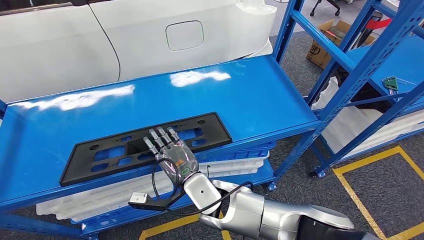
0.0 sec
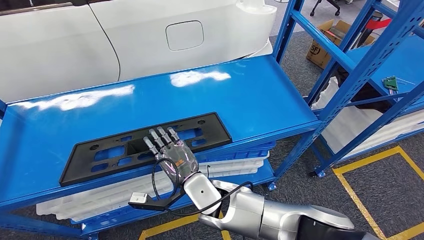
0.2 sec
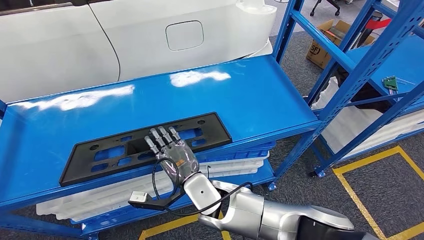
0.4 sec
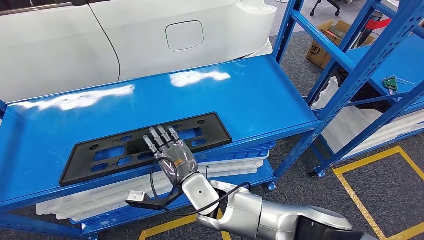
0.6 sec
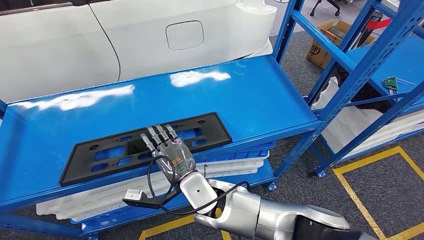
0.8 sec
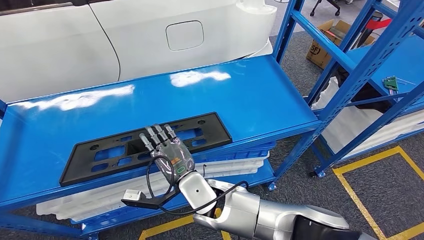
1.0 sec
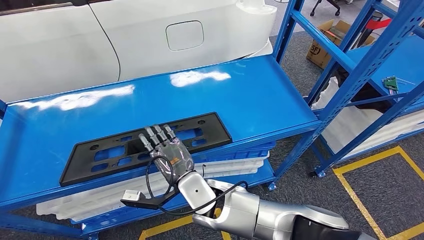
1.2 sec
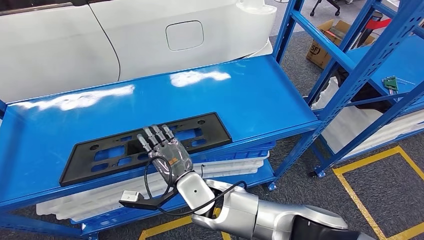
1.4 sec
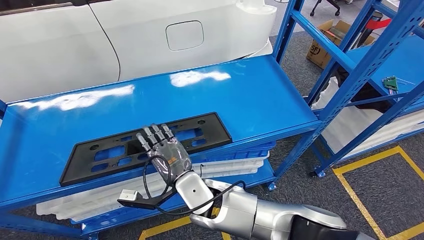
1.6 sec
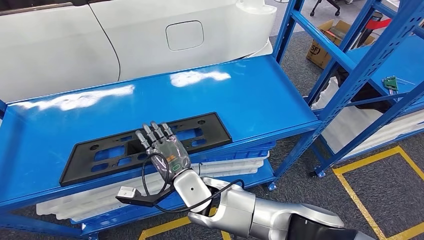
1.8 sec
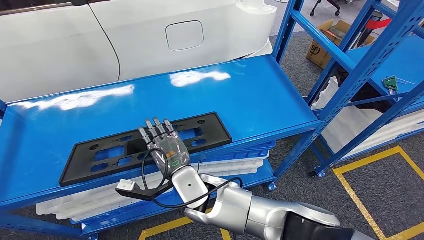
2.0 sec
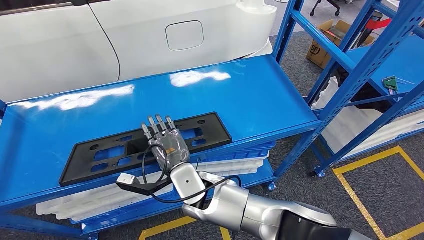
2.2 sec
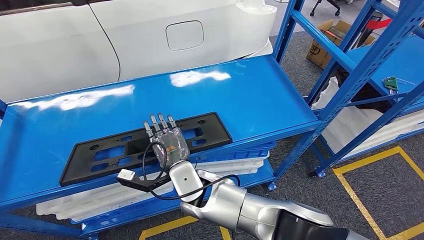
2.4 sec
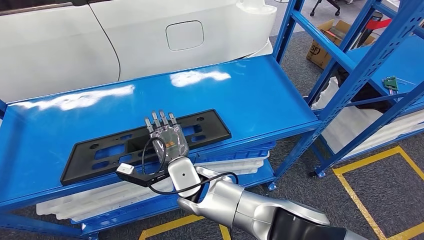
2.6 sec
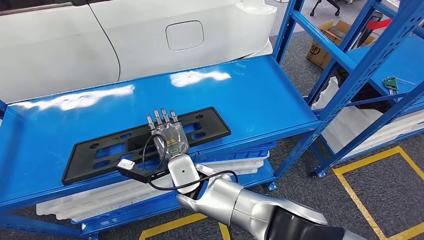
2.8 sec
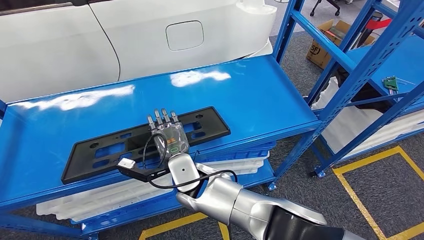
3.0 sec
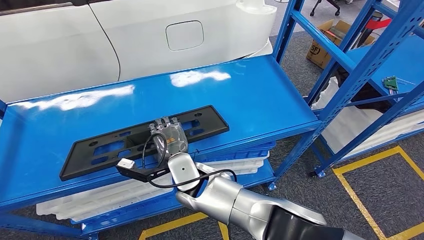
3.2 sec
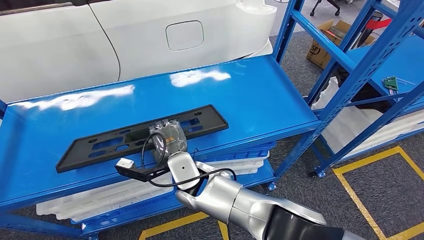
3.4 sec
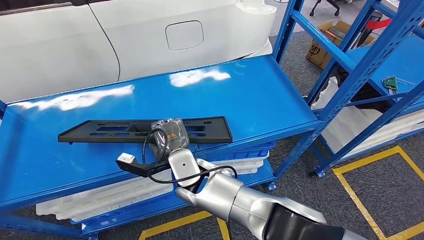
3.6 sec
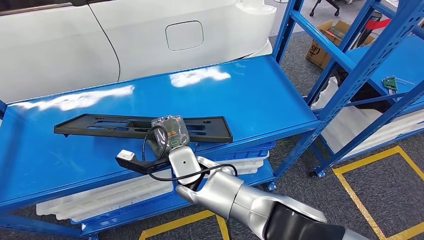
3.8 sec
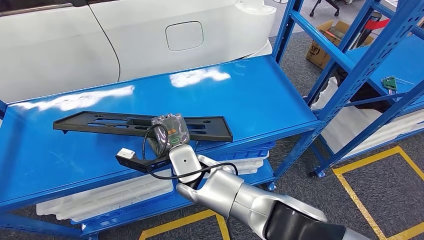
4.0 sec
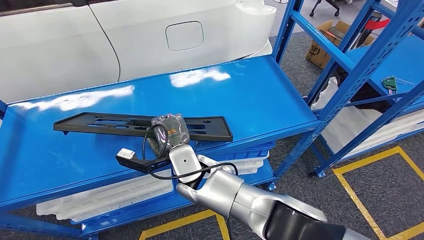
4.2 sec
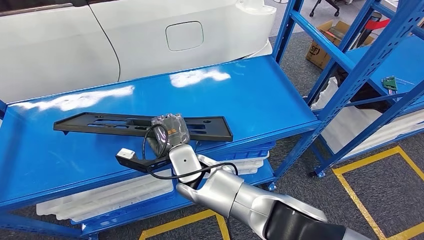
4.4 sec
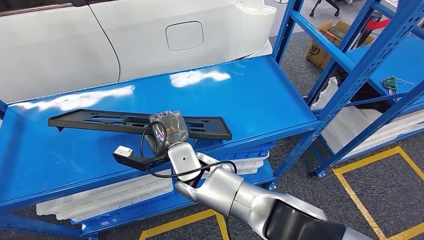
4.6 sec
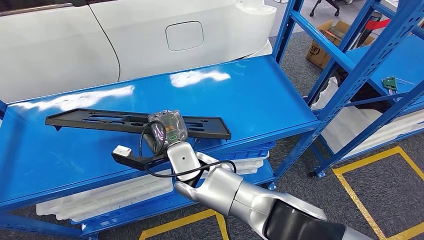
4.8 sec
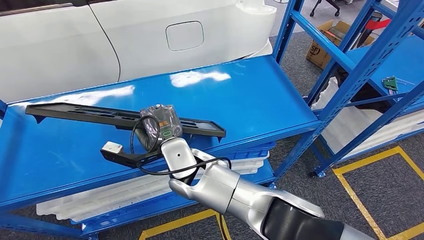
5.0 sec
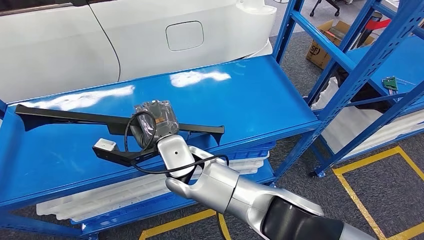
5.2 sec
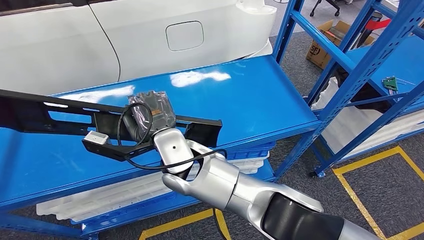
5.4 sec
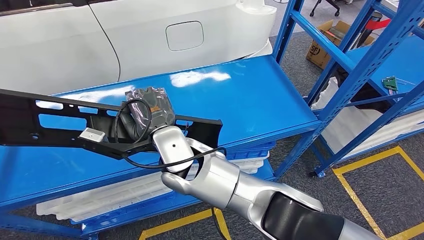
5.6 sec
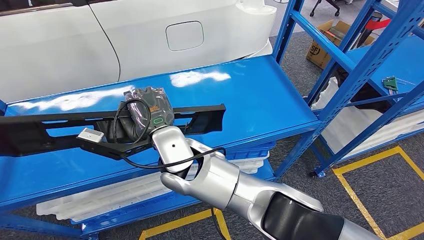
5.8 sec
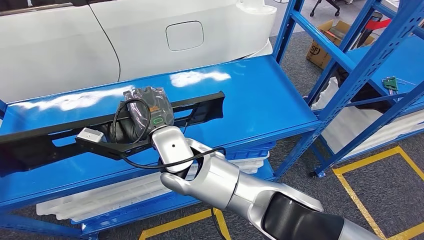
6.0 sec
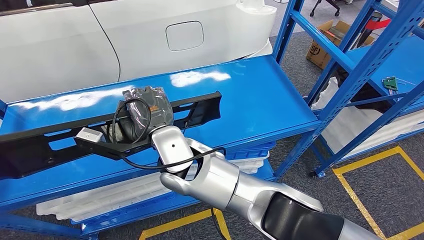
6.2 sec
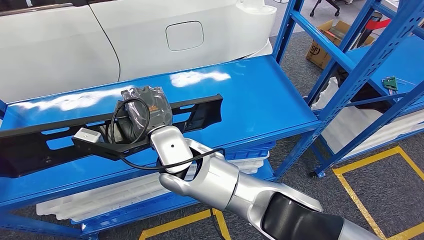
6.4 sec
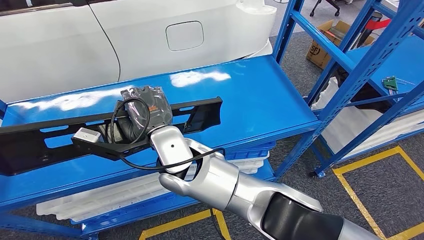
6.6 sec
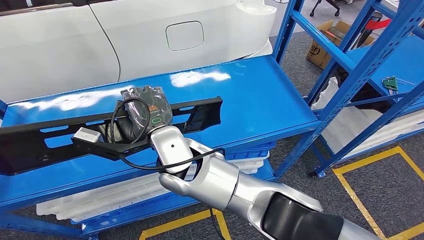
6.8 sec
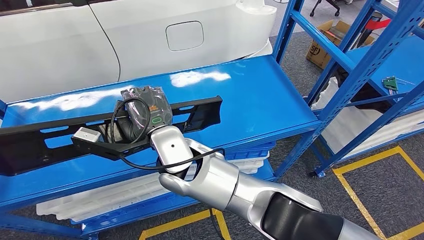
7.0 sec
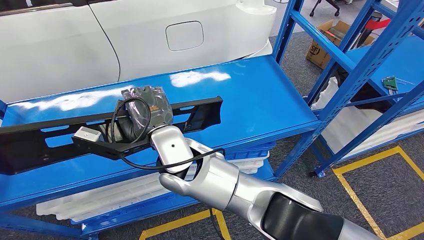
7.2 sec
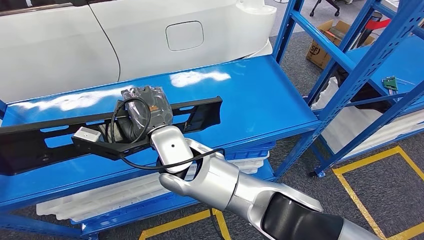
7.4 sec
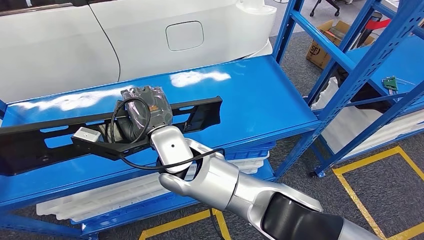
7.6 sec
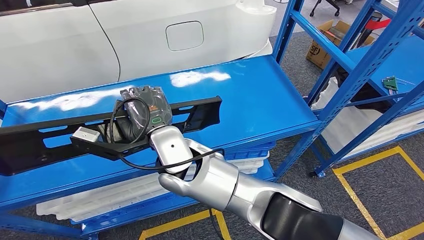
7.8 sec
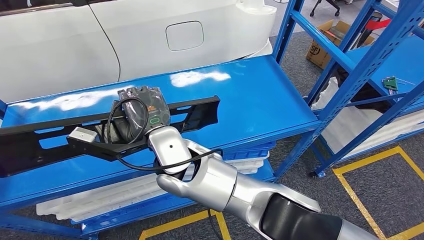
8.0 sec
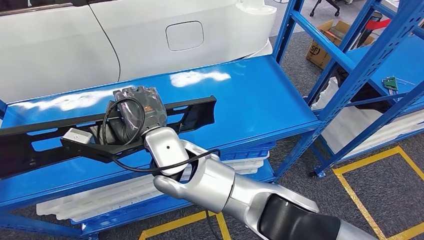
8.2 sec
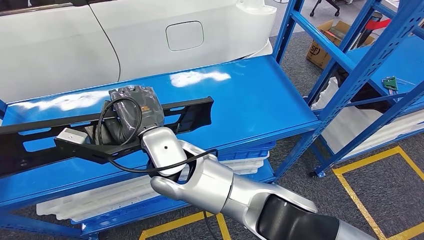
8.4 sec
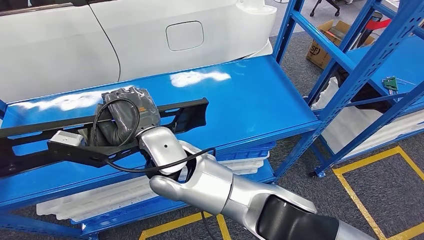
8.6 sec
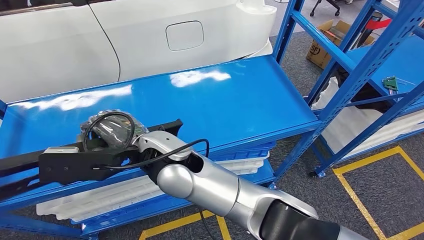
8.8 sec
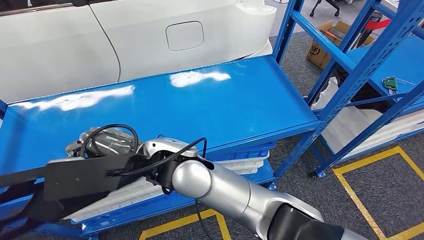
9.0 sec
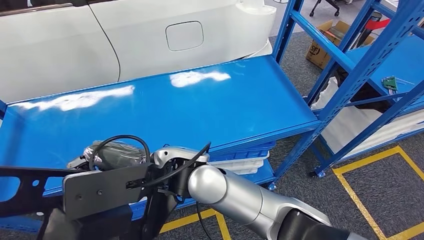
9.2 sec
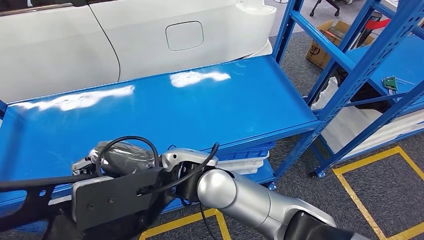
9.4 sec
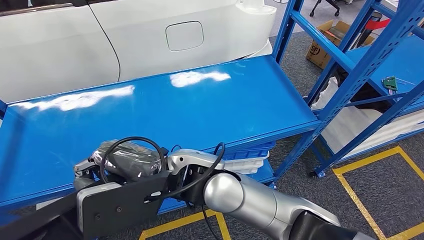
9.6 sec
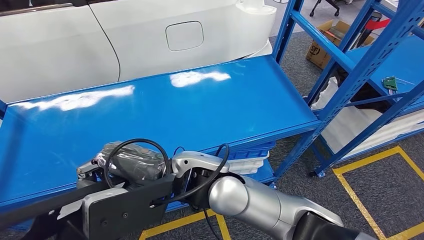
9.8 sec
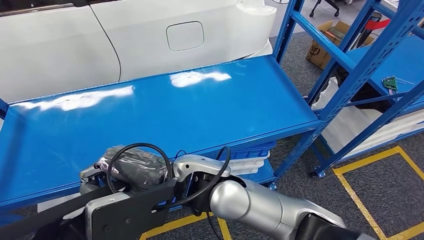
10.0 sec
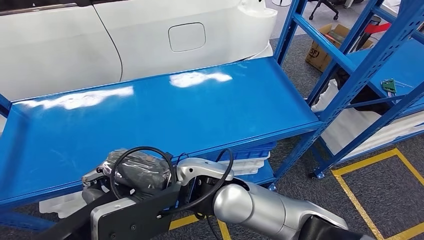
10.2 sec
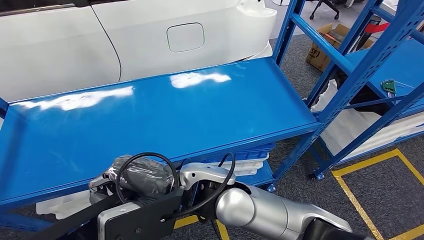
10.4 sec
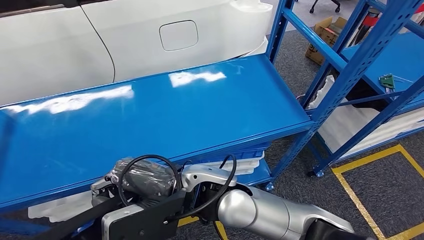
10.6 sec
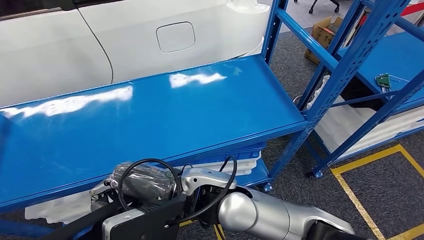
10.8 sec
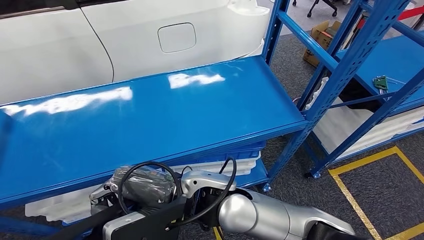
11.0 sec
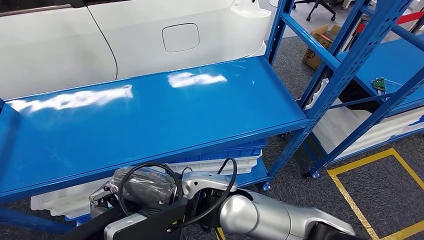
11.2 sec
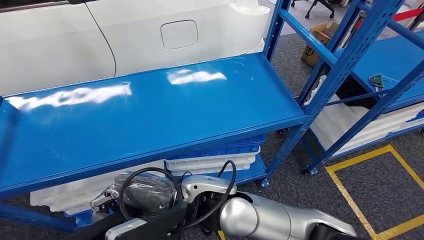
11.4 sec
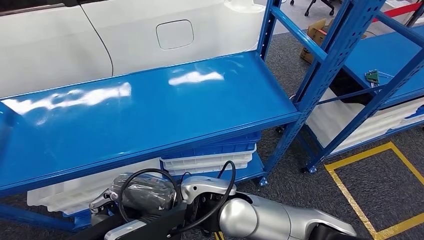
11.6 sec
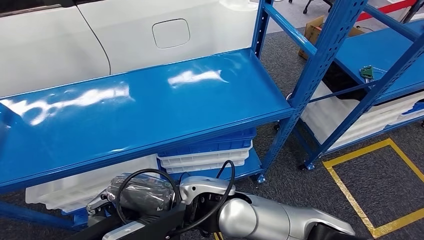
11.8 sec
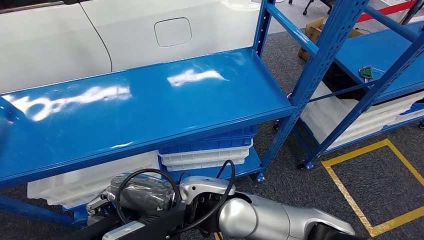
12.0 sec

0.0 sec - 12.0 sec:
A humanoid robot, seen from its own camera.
Step, 0.0 sec - 10.4 sec: Pick up the large material from the shelf.
0.0 sec - 3.0 sec: The hands stay close to where they were, moving slightly.
3.0 sec - 4.4 sec: The hands move only a little.
4.4 sec - 6.0 sec: The right hand heads upward, covering approximately 10 cm.
6.0 sec - 7.6 sec: There are only small adjustments of the hands.

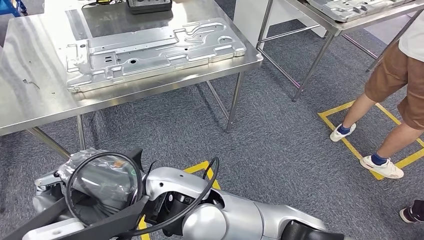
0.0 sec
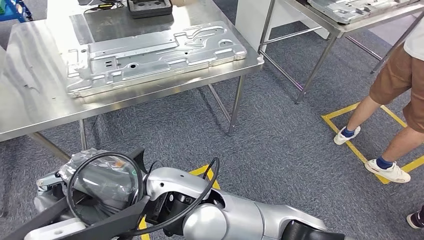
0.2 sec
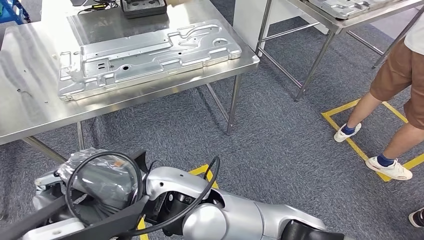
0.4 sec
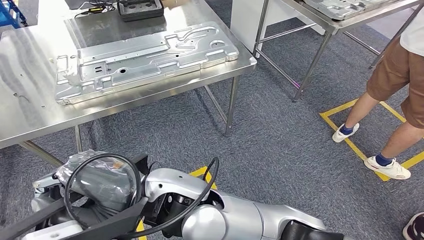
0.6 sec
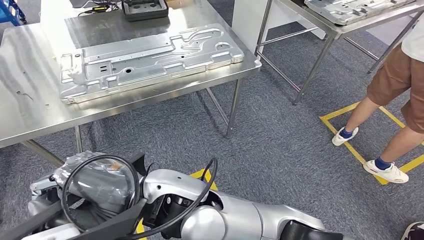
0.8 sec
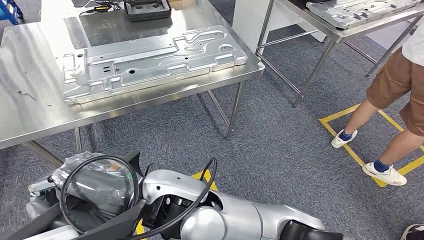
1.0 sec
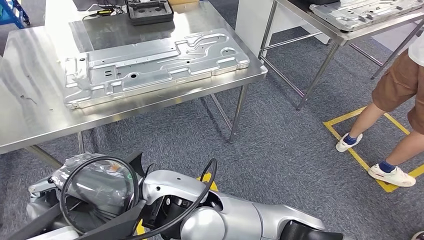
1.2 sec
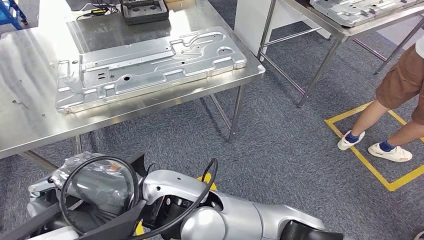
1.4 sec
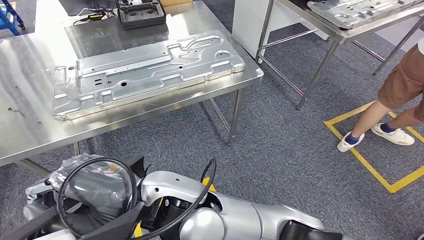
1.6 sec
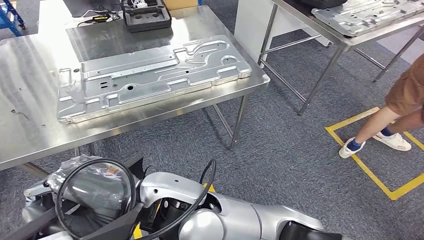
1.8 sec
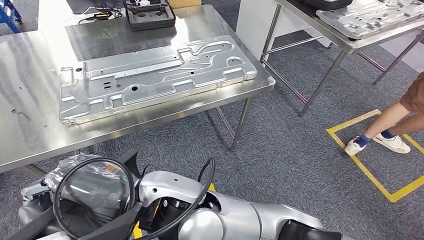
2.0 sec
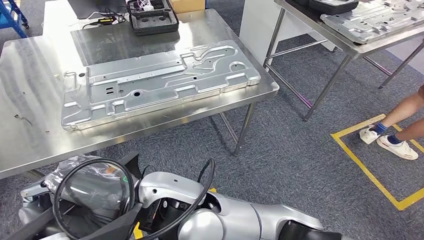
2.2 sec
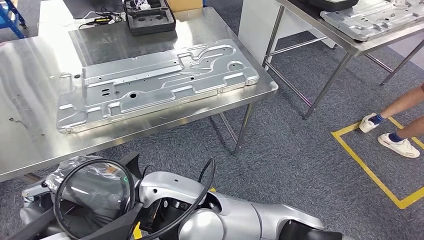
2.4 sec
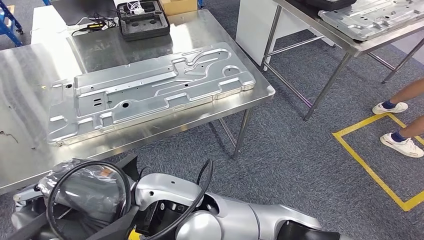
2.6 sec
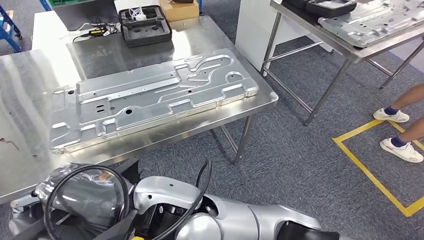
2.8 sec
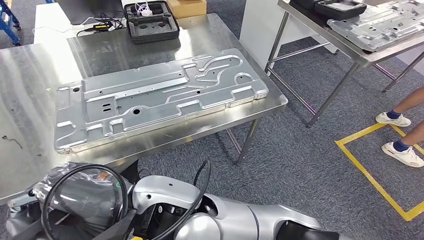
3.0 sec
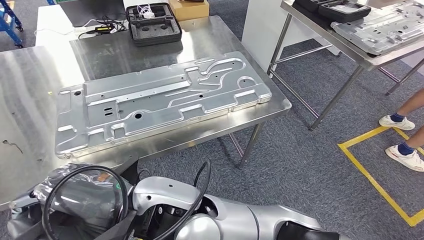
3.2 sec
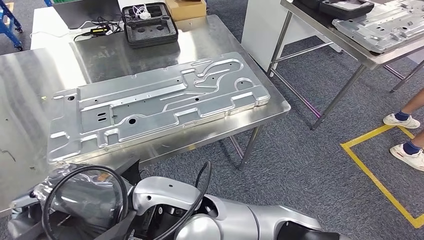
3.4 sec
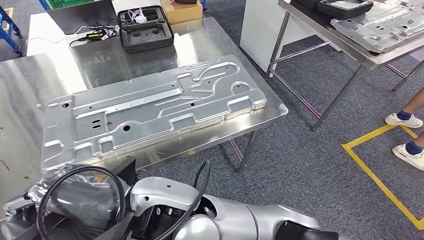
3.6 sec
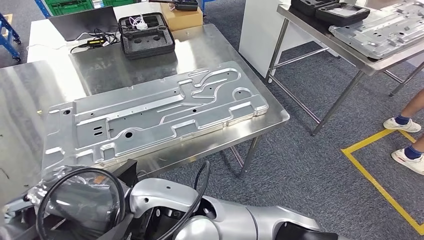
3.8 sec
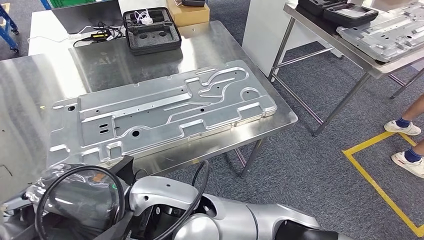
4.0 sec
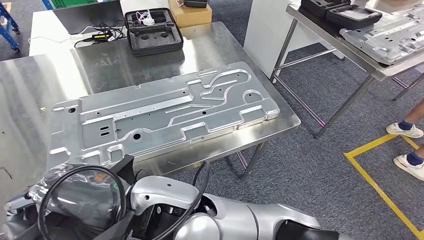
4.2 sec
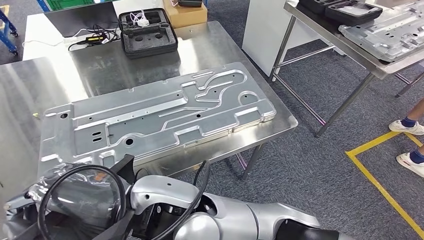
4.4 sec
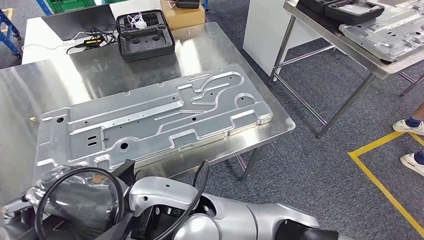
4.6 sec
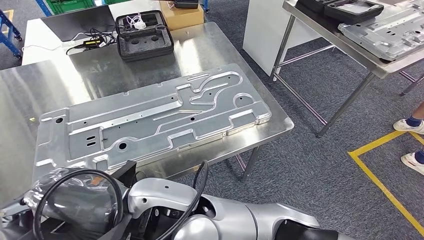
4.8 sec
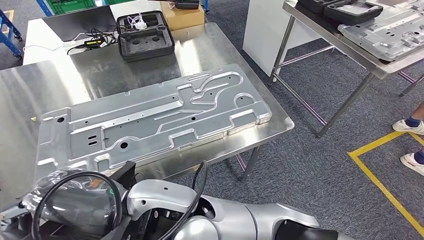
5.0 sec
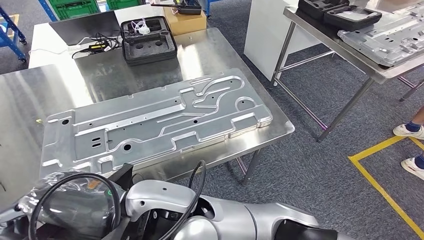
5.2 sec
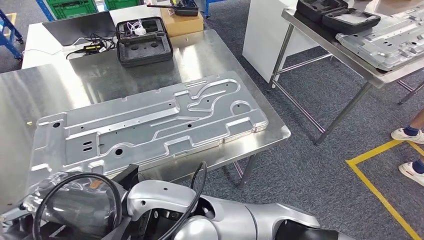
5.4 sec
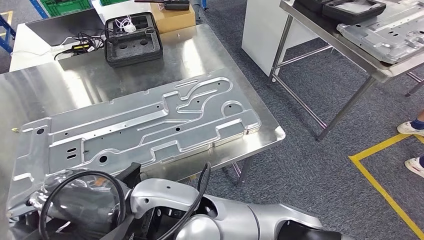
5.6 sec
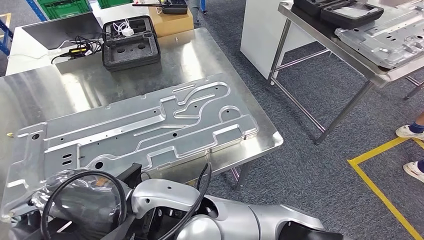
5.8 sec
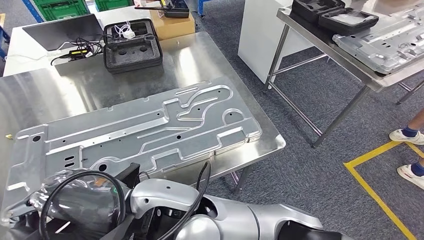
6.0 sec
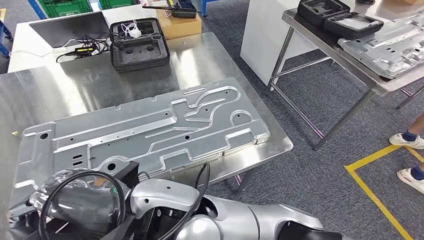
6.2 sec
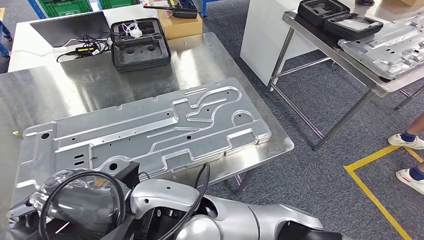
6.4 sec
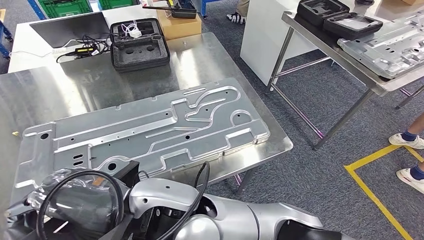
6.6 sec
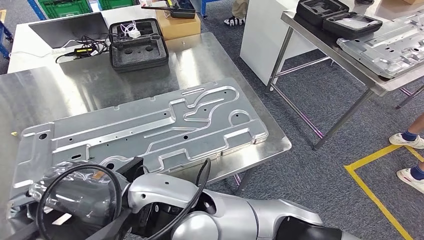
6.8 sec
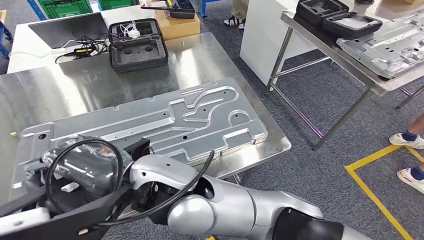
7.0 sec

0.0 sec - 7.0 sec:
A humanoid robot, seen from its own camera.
Step, 0.0 sec - 7.0 sec: Move the large material to the workbench.
